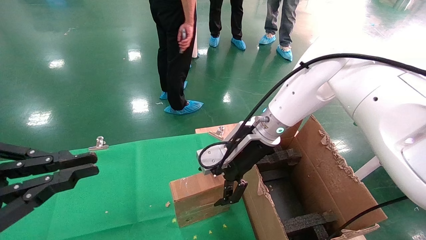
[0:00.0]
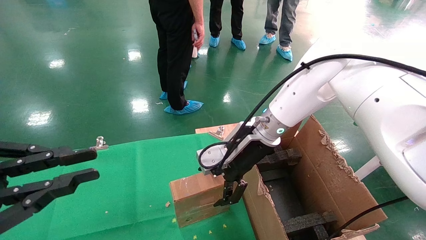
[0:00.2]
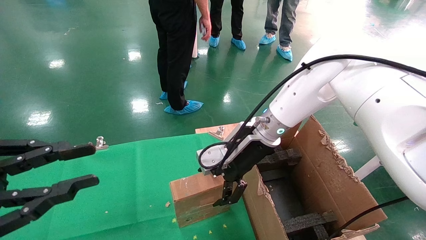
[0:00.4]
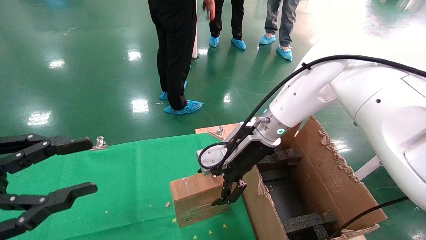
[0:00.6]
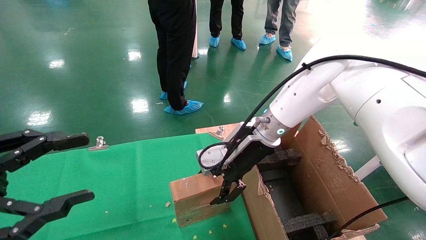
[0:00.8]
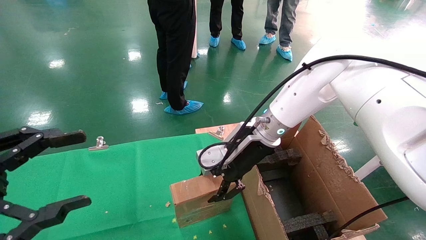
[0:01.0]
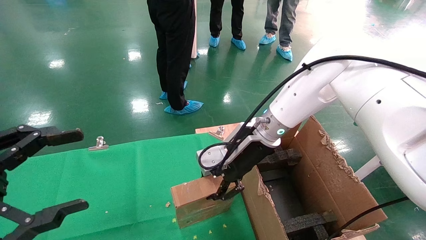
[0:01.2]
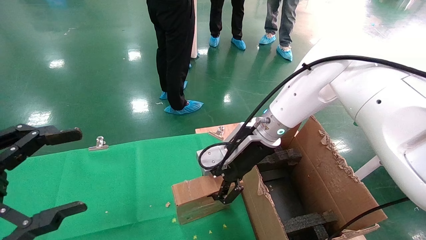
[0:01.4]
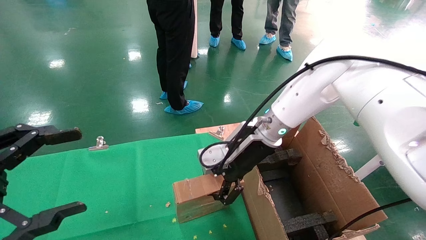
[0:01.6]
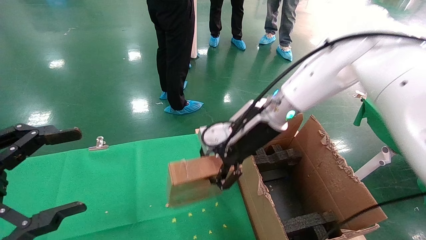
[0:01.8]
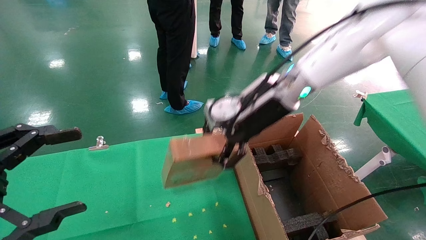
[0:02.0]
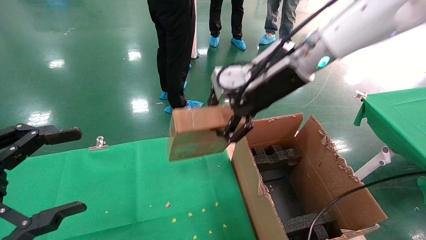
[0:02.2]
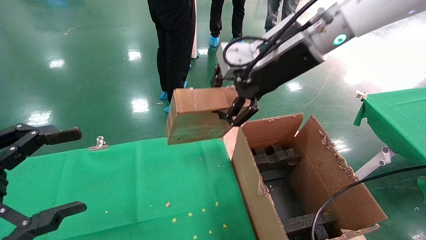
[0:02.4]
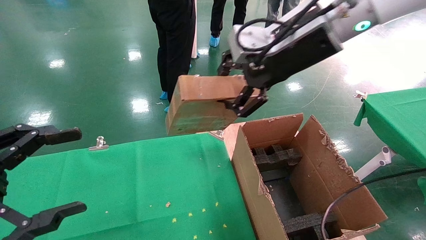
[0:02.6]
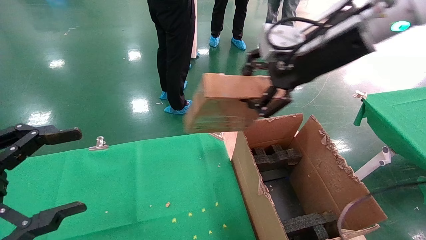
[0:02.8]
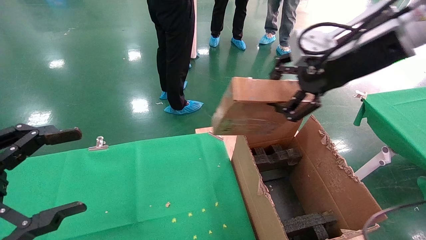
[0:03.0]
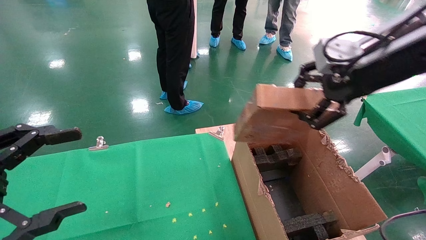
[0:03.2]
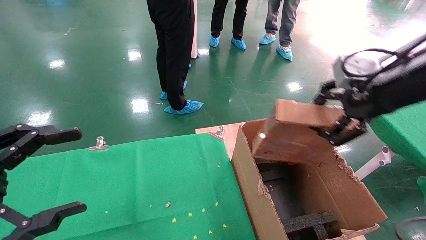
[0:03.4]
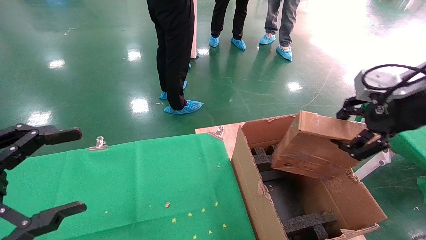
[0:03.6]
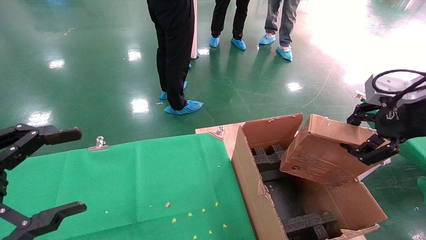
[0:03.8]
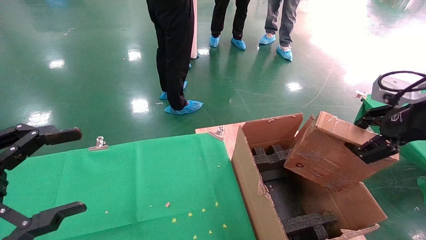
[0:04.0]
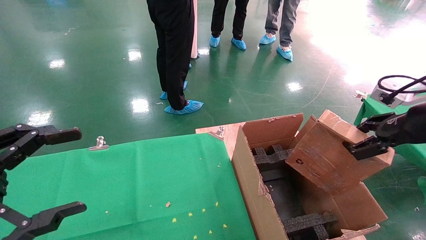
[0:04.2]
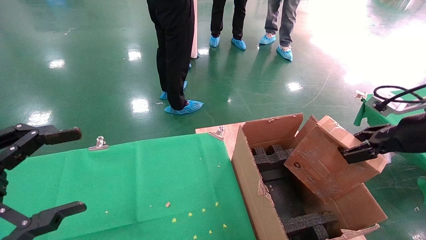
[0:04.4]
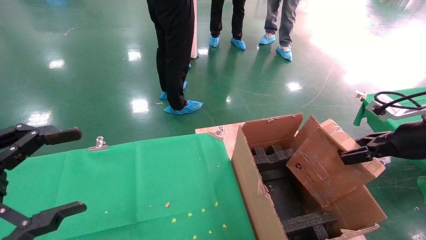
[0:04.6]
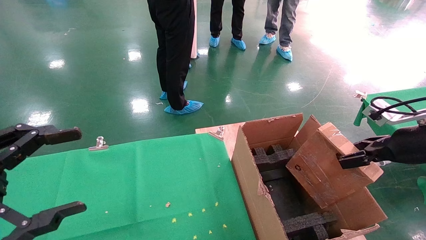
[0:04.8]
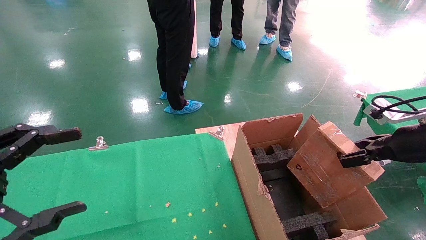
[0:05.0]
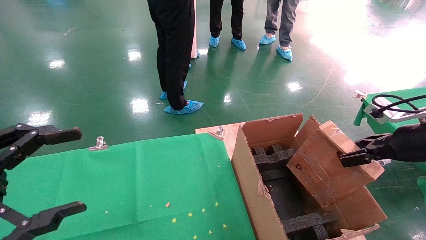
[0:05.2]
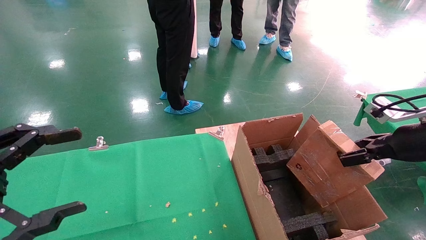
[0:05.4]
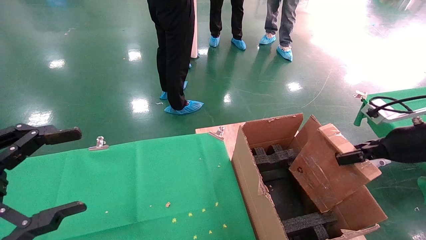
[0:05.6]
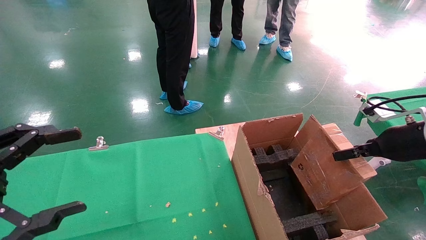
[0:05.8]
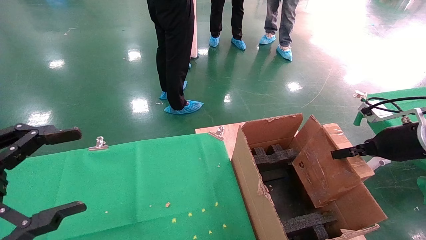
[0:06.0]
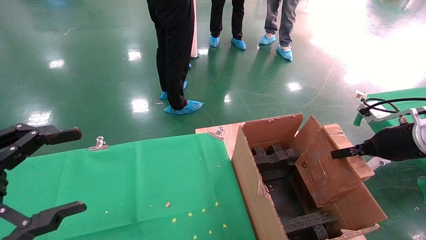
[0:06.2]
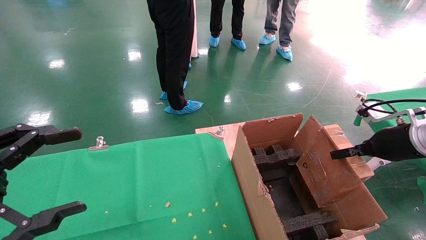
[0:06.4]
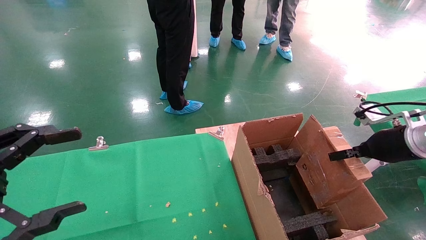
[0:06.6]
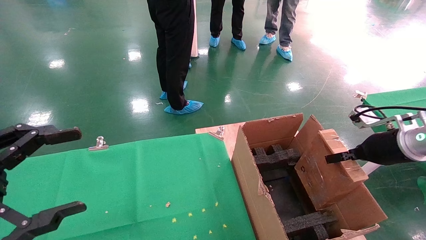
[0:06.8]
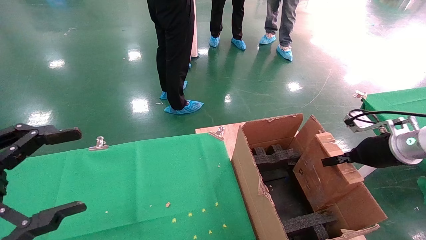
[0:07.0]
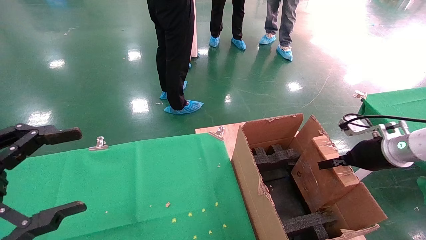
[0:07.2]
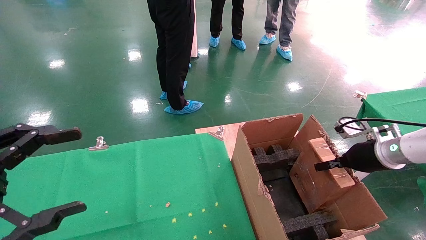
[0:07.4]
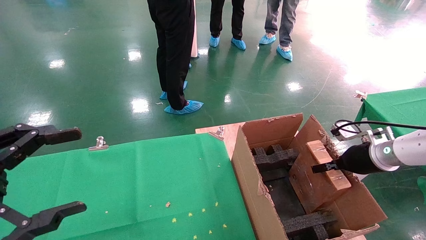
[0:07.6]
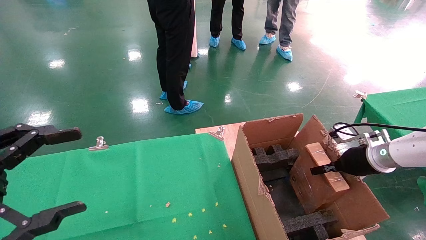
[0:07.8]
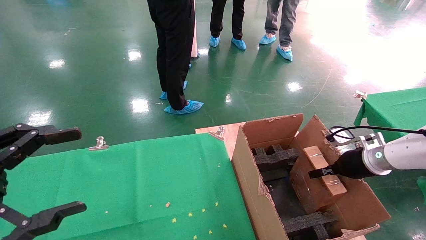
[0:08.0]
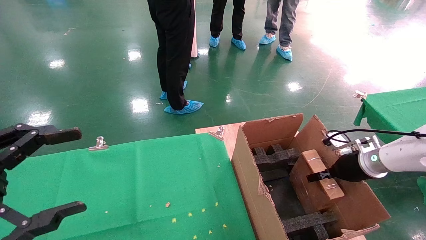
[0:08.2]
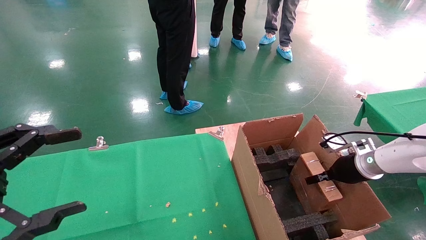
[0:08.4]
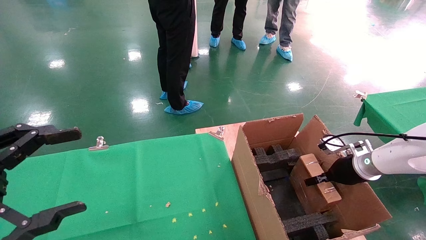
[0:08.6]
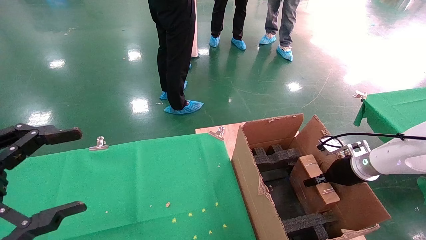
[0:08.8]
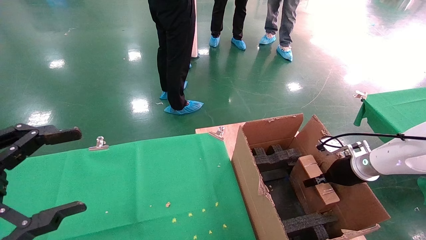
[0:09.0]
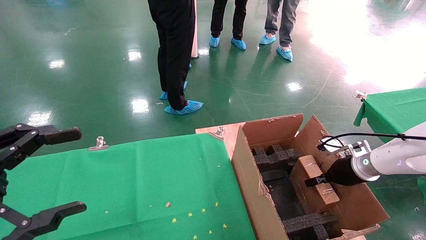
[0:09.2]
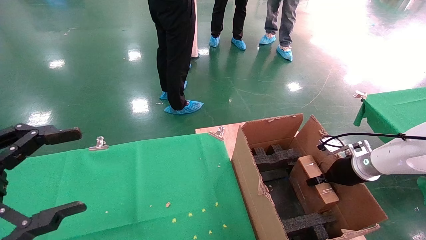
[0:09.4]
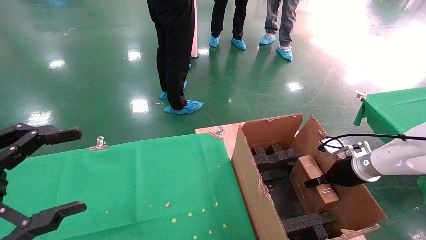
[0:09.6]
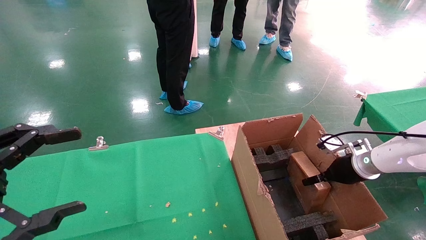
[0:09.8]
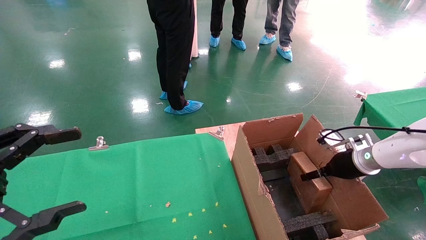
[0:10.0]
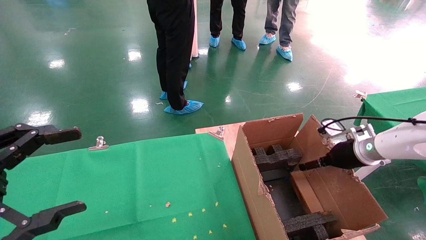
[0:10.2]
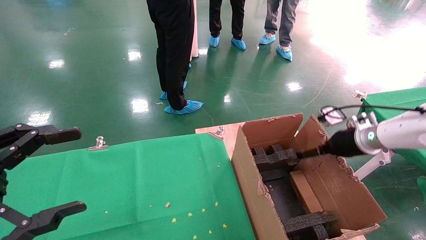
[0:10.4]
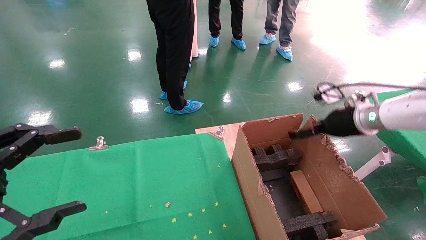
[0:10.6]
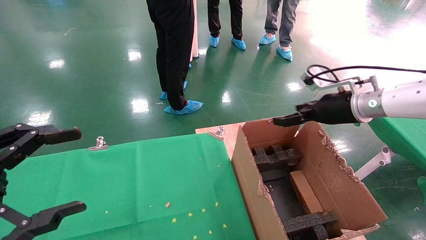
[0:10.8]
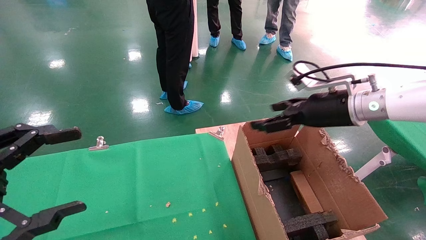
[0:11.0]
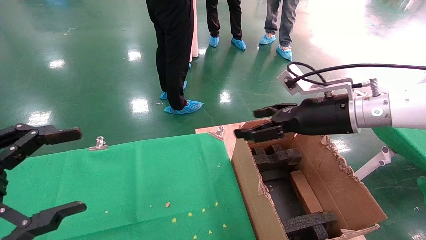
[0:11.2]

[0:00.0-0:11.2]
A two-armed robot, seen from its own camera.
Task of the whole recording: using a robotic arm to pick up a cardboard box and palace it the carton.
Step, 0:01.6 to 0:10.6: Place the mouse and the power cord paper box into the container.
0:00.0 to 0:01.6: The left gripper opens up; the right gripper closes up.
0:01.6 to 0:03.2: The right gripper is displaced to the right, upward and backward by roughly 25 cm.
0:03.2 to 0:04.8: The right gripper moves downward and to the right, some 20 cm.
0:04.8 to 0:06.4: The right gripper shifts by approximately 5 cm.
0:06.4 to 0:08.0: The right gripper moves downward and forward, approximately 10 cm.
0:08.0 to 0:09.6: The grippers move only a little.
0:09.6 to 0:11.2: The right gripper is displaced upward and to the left by some 20 cm, and opens its fingers.

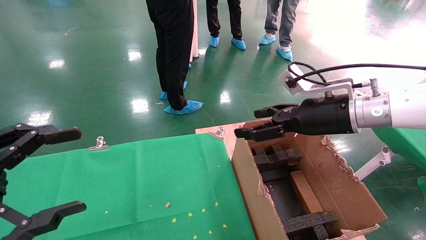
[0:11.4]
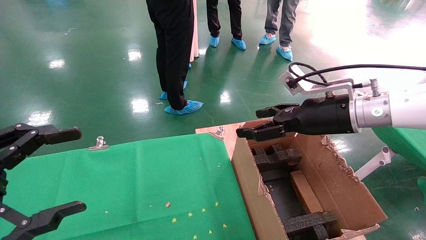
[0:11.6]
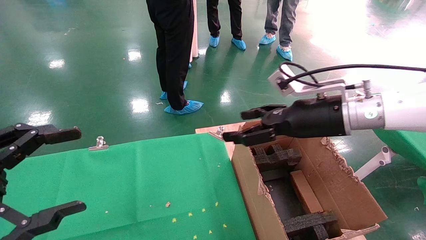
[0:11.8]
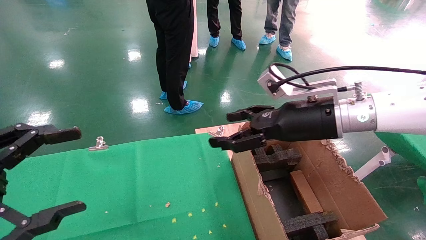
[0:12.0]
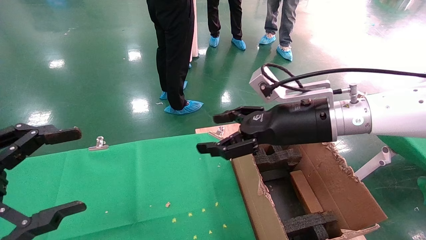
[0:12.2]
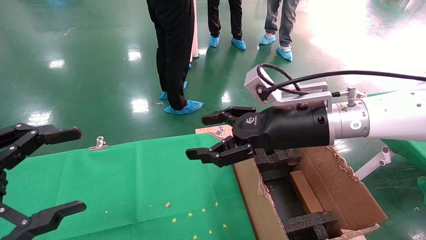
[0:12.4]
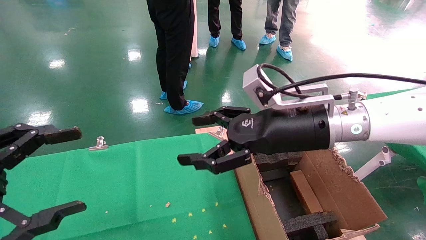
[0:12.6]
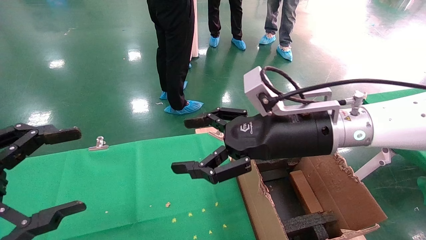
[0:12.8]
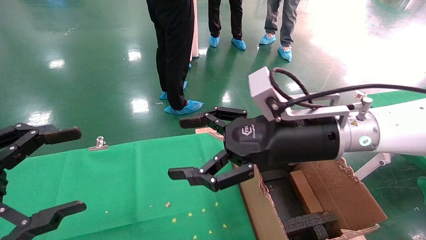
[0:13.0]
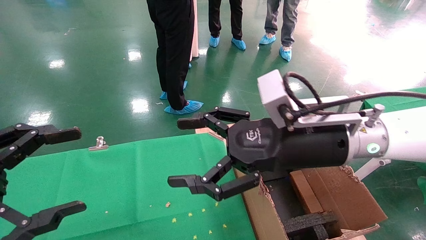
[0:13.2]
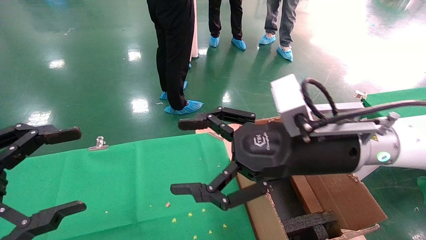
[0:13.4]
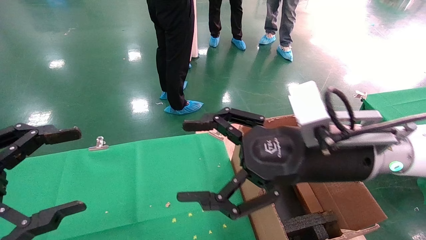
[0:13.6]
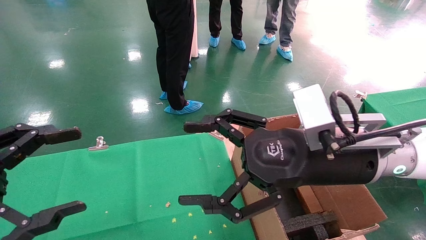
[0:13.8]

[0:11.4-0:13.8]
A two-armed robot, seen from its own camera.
Task of the whole recording: using a robotic arm to pick up a cardboard box and palace it the carton.
0:11.4 to 0:12.6: The right gripper goes roughly 10 cm to the left.
0:12.6 to 0:13.8: The right gripper moves backward, about 5 cm.
